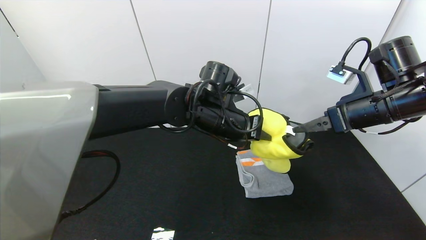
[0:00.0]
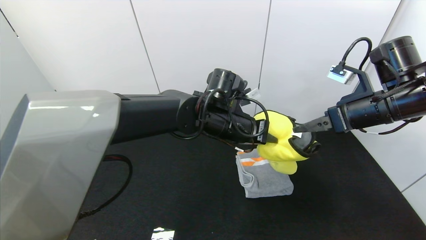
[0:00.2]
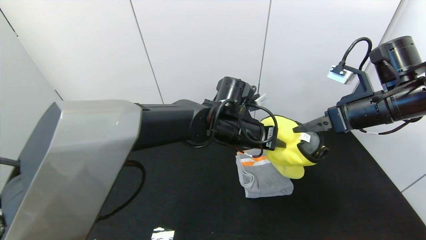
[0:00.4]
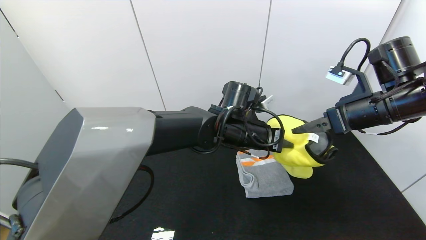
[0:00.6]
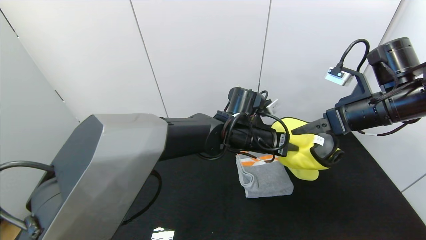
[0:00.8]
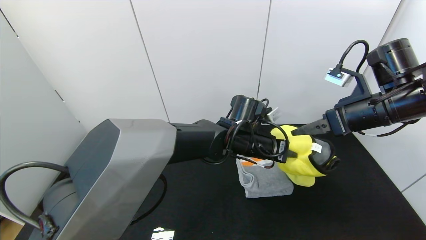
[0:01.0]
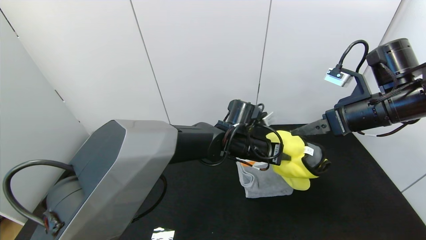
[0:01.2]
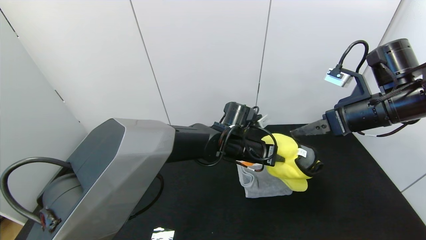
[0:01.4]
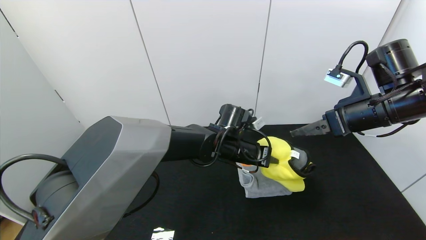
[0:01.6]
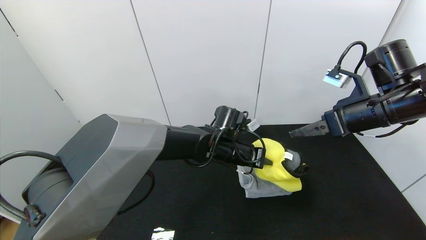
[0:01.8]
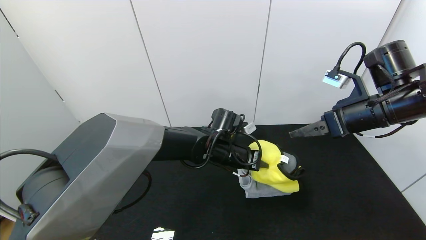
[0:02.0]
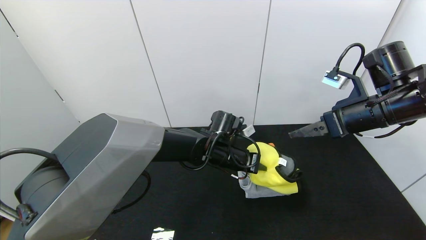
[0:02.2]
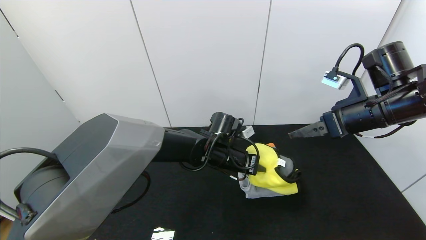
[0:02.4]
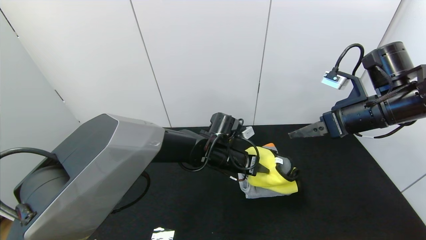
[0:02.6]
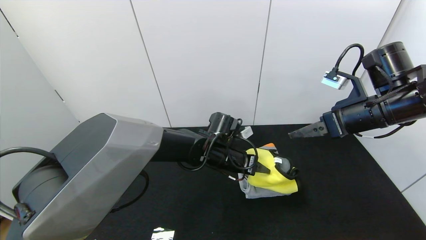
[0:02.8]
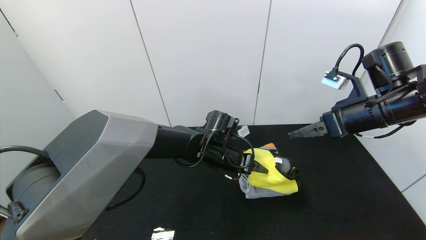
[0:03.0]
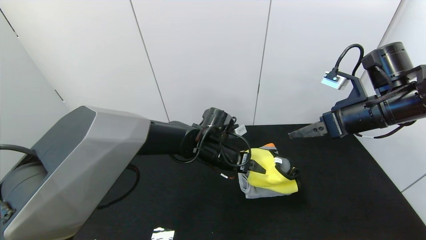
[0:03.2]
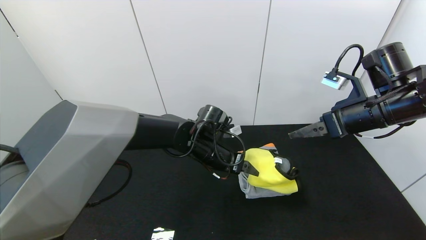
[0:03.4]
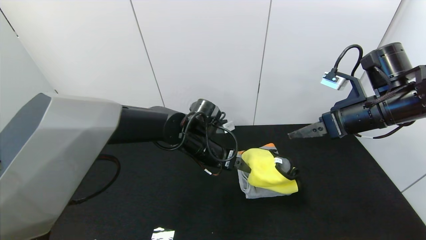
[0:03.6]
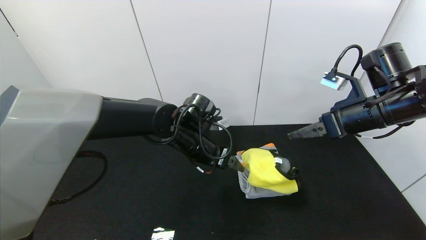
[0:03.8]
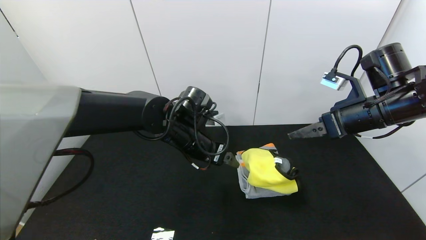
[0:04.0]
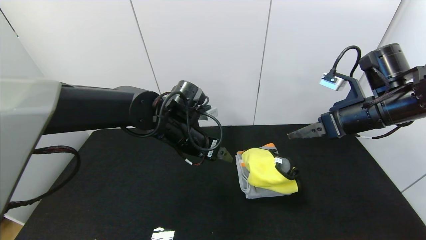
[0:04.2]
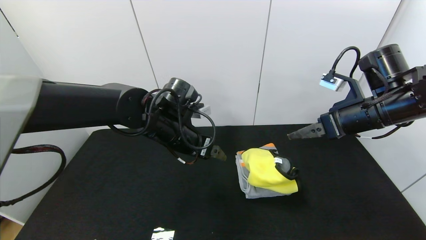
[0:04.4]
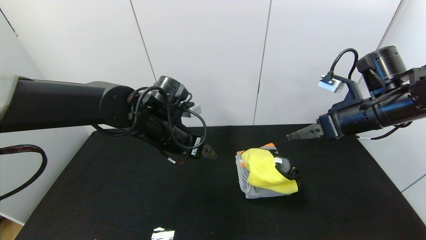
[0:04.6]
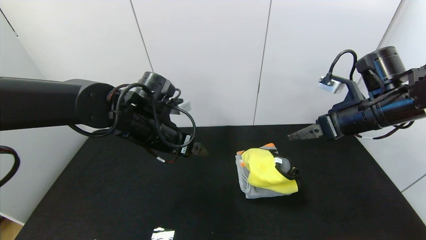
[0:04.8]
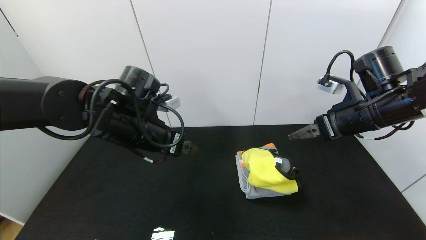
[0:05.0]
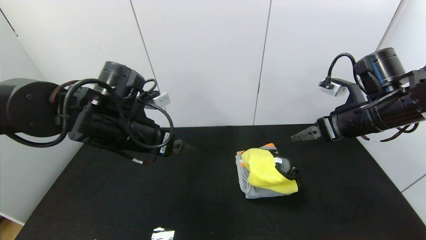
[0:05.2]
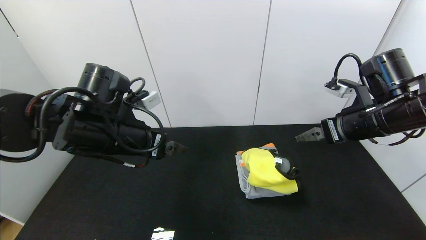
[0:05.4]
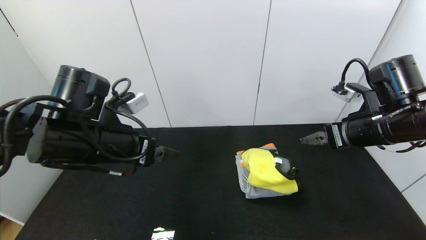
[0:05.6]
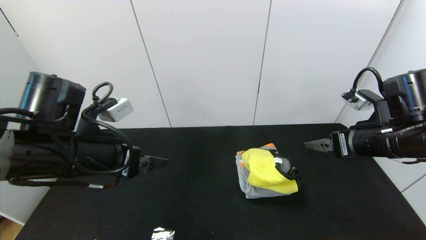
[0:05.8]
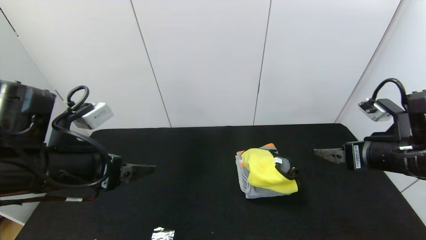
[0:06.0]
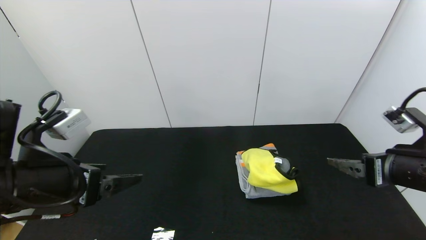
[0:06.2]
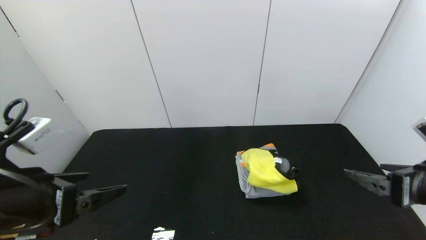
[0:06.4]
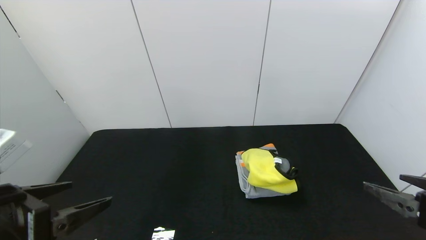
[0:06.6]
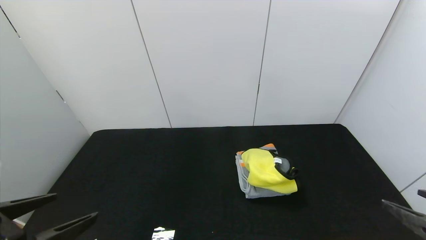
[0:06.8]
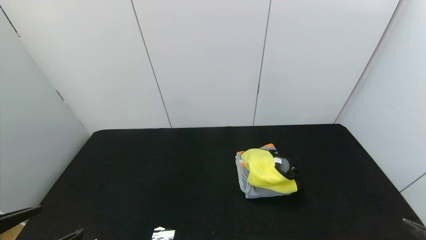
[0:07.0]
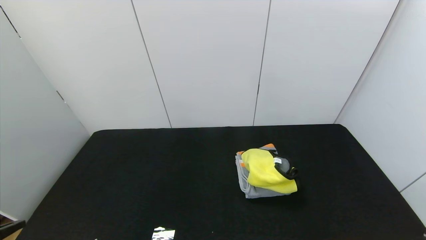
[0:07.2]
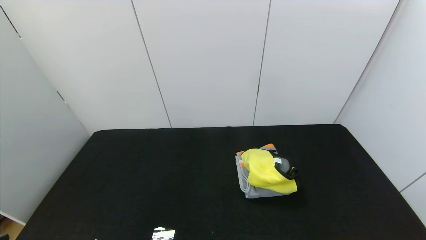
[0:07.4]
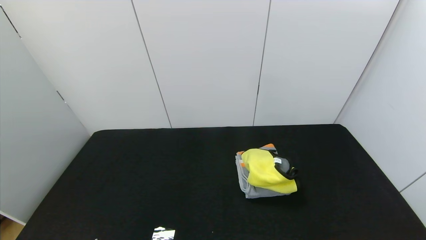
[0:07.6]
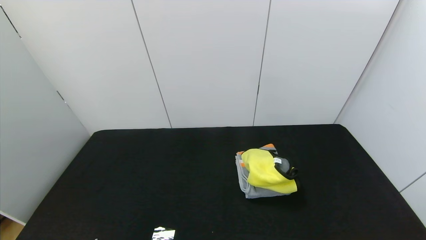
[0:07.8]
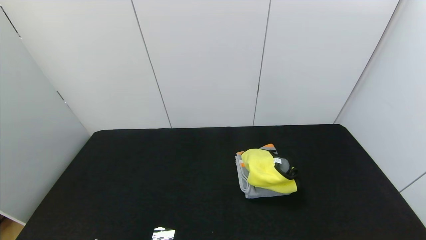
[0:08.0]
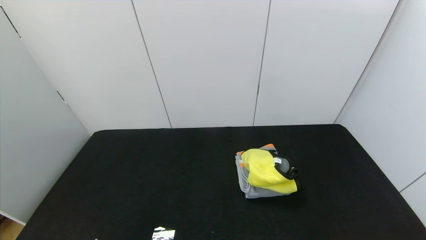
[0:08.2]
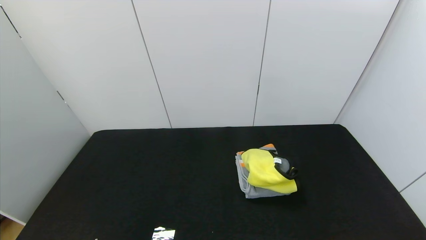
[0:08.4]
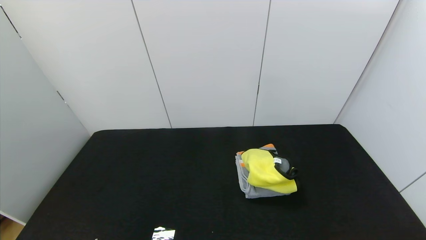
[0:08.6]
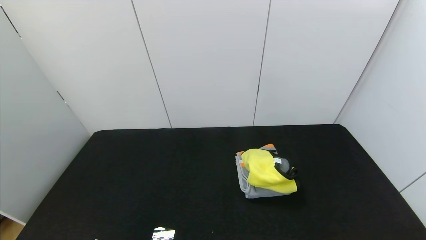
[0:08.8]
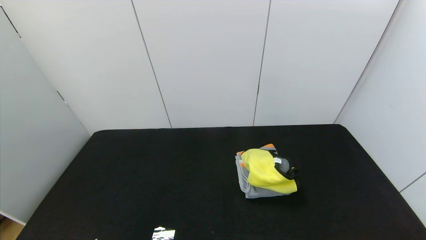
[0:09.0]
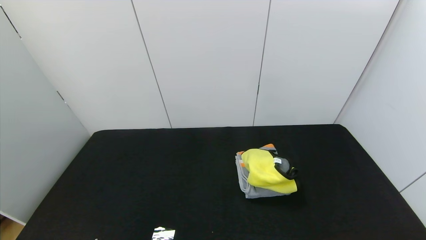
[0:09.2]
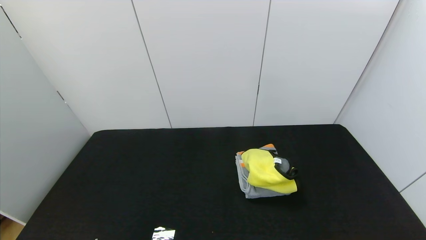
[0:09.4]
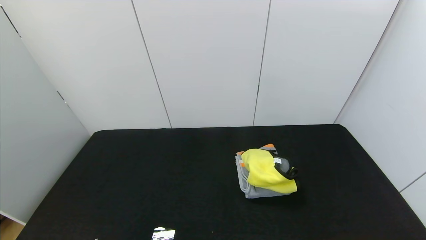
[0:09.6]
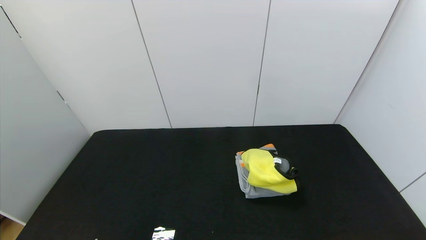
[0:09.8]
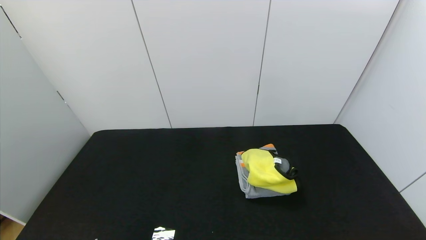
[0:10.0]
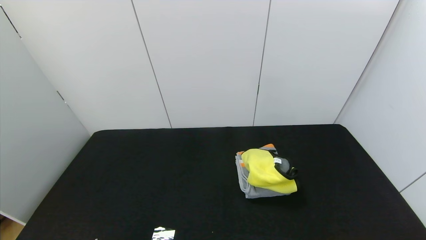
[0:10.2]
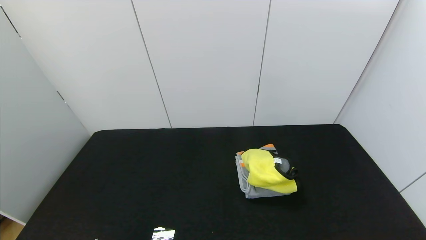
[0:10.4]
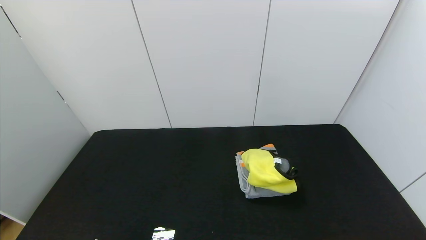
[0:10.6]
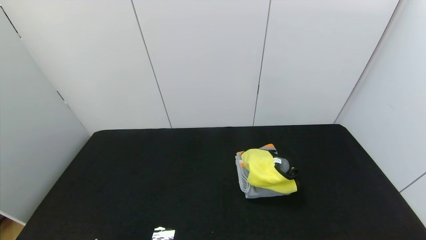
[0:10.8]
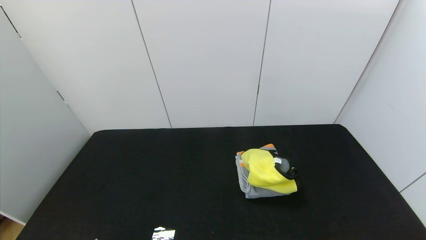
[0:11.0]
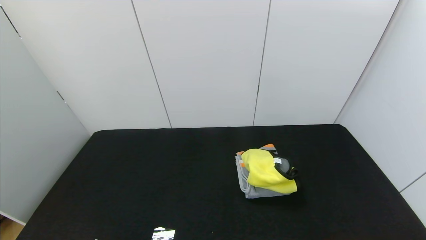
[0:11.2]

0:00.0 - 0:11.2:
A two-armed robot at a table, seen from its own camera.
Task of the whole recording: Use the gripper to fold the yellow towel and grey towel in half twice,then put the yellow towel on the grey towel.
Step, 0:00.0 - 0:03.4: Place the yellow towel on the gray towel with the left gripper.
0:00.0 - 0:01.6: The left gripper travels downward by approximately 10 cm.
0:01.6 - 0:03.2: The left gripper opens its fingers.
0:03.2 - 0:04.8: The left gripper goes some 15 cm to the left and upward.
0:04.8 - 0:06.4: The right gripper travels backward by about 15 cm. The left gripper is displaced backward and to the left by roughly 20 cm.
0:06.4 - 0:08.0: Both grippers move backward, about 20 cm.
